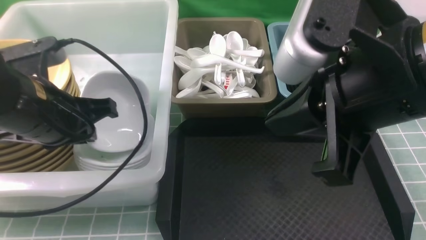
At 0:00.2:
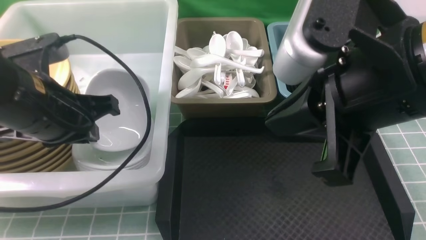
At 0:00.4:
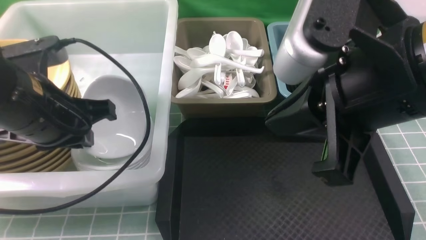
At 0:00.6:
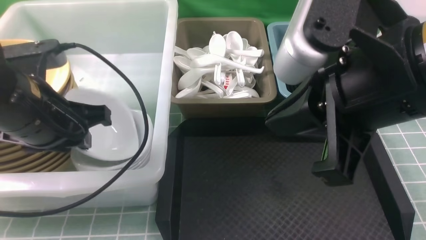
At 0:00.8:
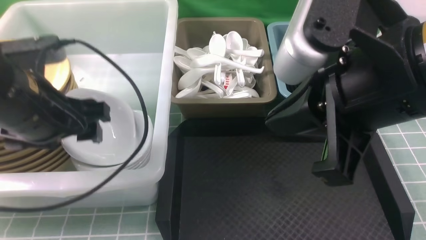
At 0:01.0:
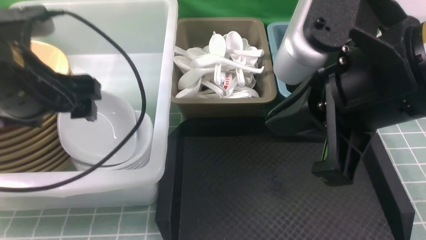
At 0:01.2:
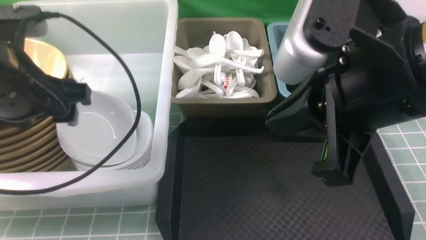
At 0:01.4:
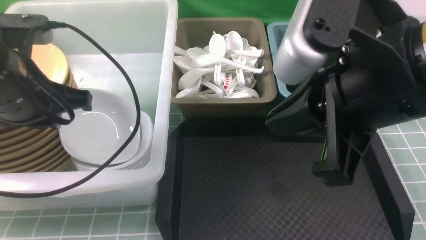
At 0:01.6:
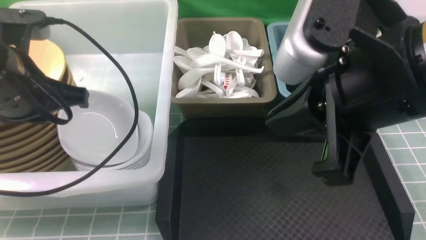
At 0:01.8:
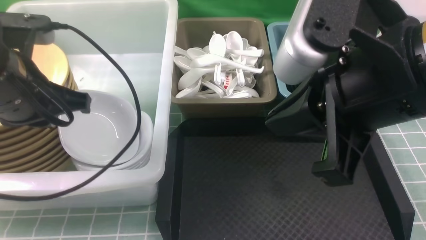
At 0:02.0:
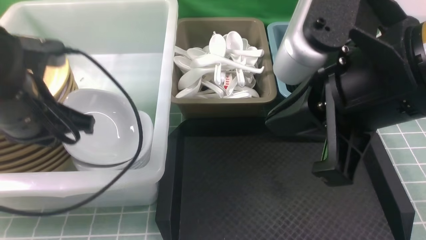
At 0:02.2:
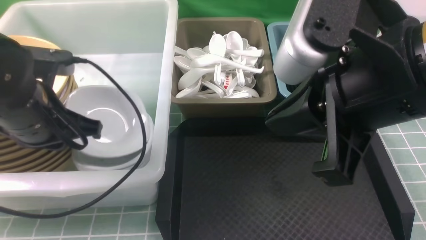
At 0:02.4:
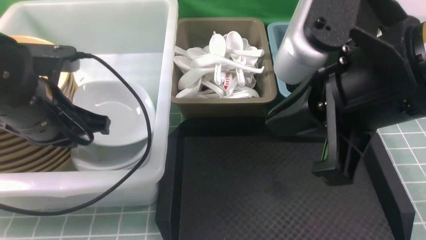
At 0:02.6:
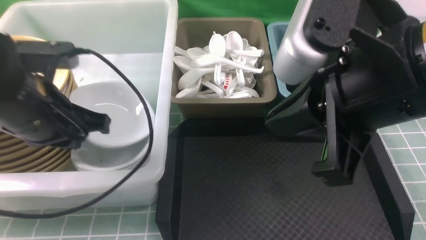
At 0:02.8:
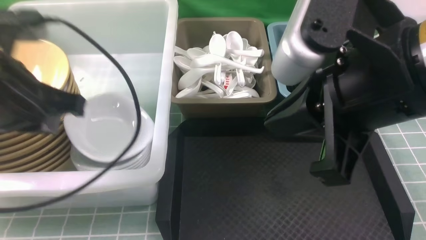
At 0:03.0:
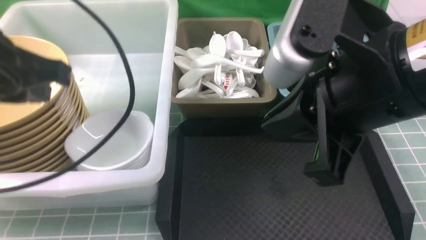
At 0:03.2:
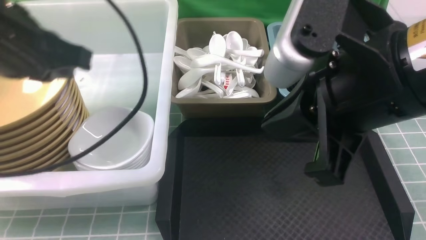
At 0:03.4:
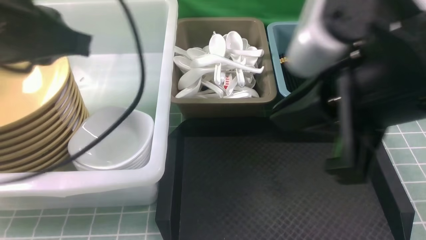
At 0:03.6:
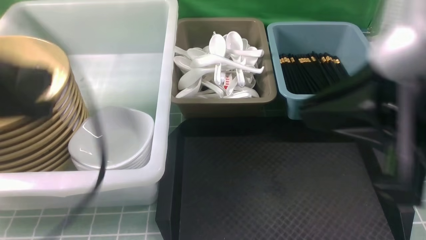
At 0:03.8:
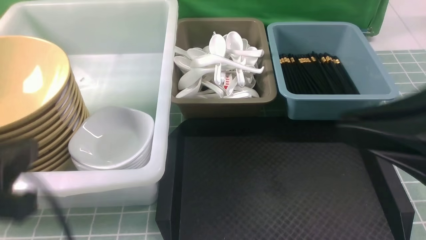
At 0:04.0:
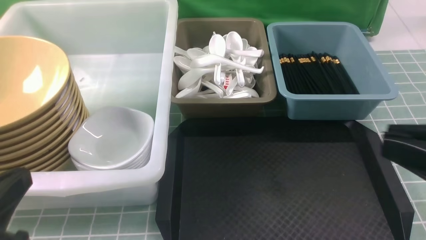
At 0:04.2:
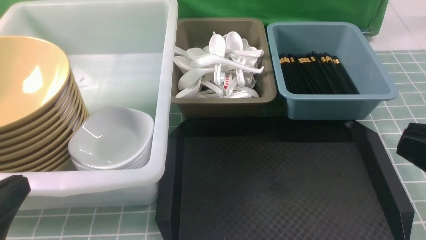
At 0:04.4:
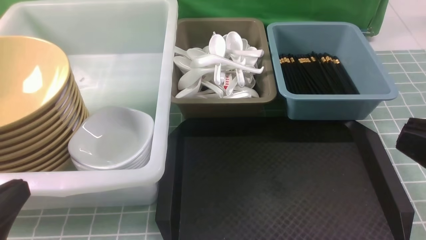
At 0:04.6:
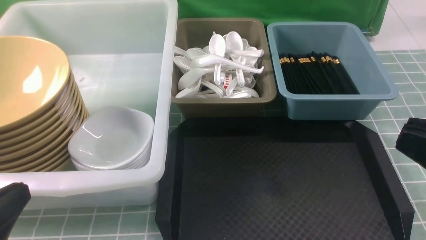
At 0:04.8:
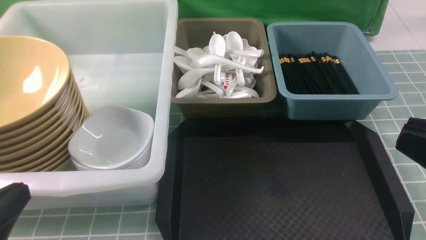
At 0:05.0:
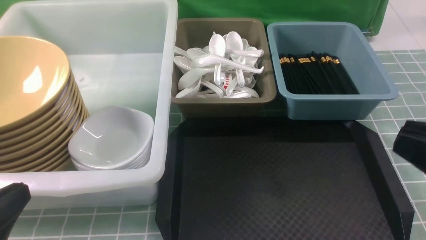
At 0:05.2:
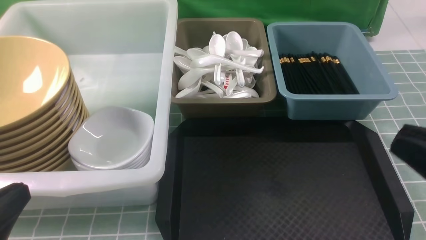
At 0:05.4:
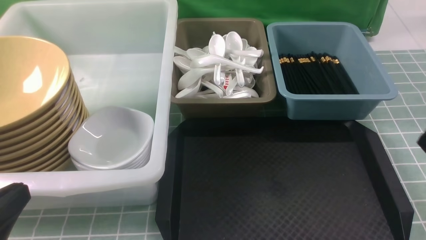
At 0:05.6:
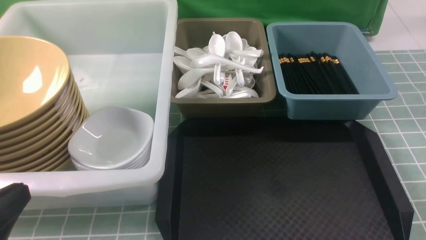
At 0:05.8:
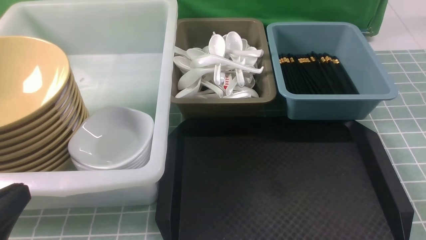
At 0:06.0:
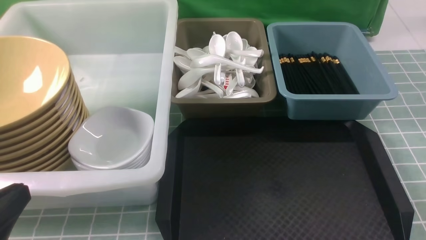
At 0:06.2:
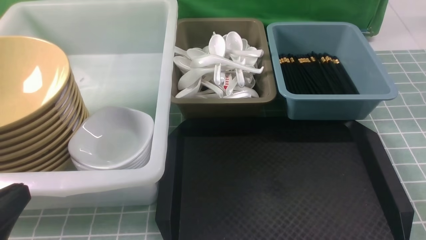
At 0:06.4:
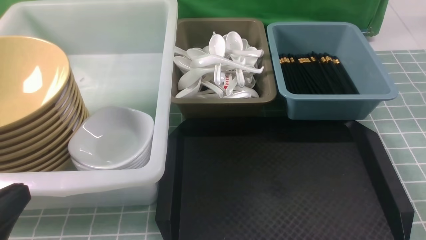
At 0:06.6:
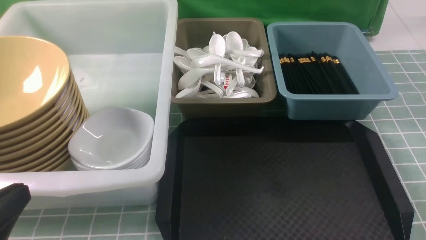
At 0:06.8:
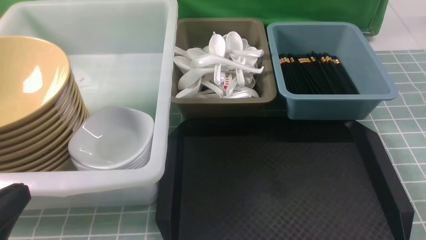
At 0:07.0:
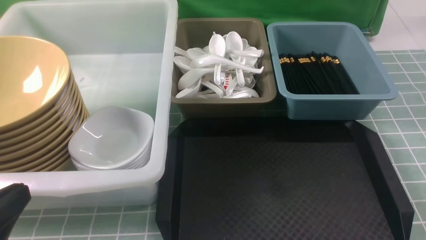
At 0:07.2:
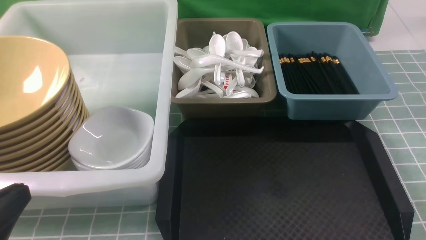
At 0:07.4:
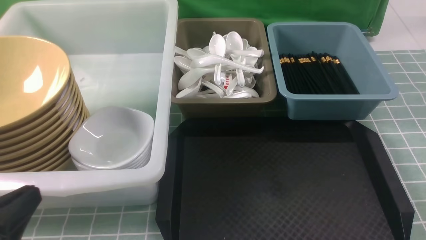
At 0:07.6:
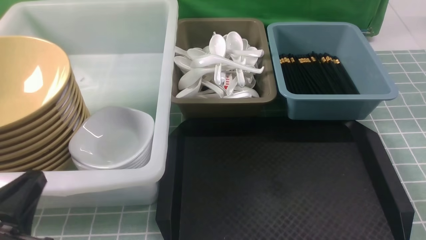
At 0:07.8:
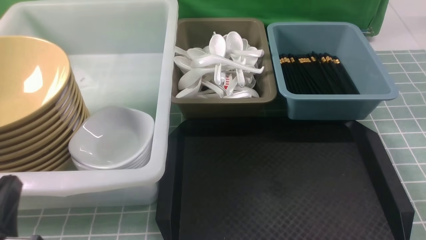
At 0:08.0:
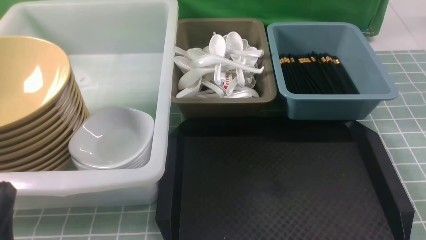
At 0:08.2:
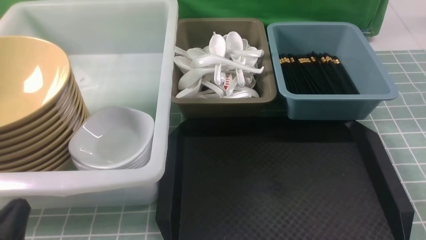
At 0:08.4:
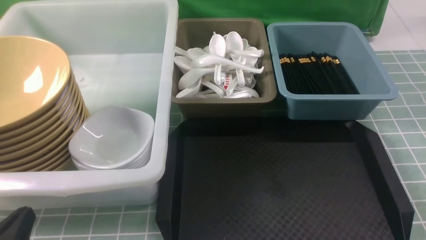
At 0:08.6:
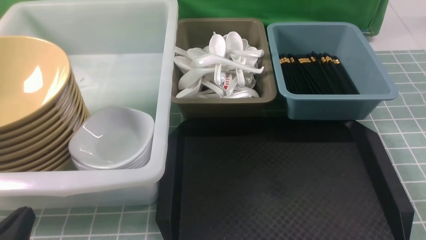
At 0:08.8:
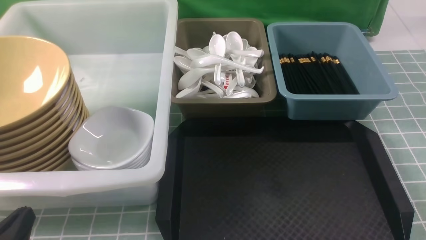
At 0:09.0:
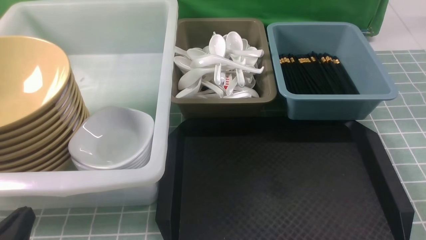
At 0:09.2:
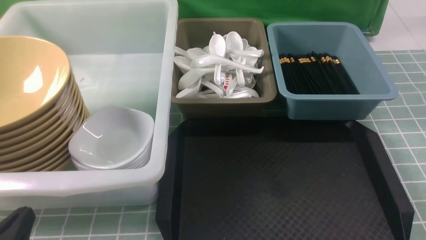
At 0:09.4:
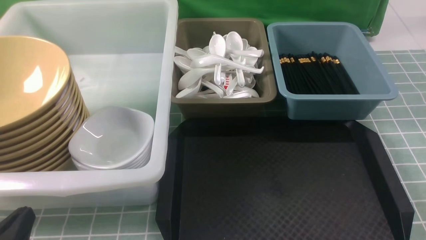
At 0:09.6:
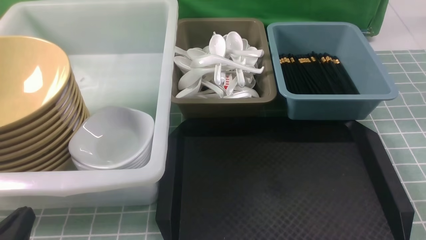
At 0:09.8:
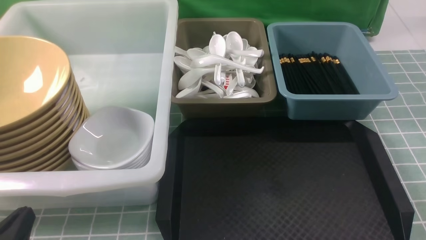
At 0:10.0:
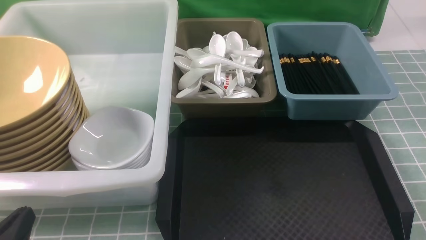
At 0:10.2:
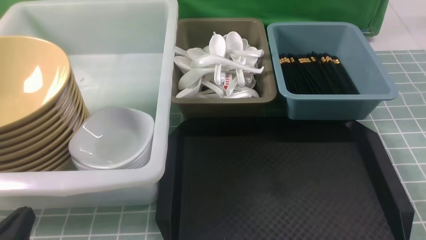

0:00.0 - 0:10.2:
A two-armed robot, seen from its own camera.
Task of the whole recording: on blue table put chopsticks spoon bowls plates into blue grey white boxes.
0:00.0 - 0:01.4: The left gripper opens, then closes again.
0:01.4 - 0:03.0: The left gripper moves upward, roughly 5 cm.
0:03.0 - 0:04.4: The left gripper heads backward and downward, covering roughly 20 cm, while the right gripper goes about 15 cm to the right and backward.
0:04.4 - 0:05.8: The right gripper heads downward and to the right, covering approximately 20 cm.
0:07.2 - 0:08.8: The left gripper moves downward, about 10 cm.
0:08.8 - 0:10.2: Both grippers stay about where they are.
